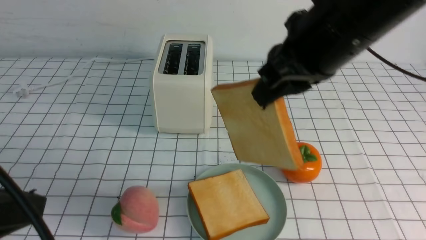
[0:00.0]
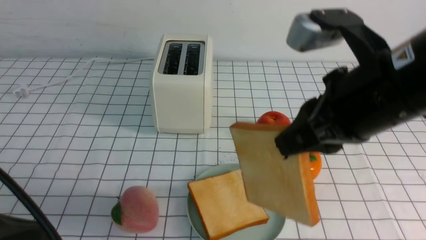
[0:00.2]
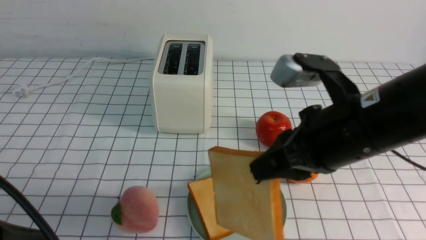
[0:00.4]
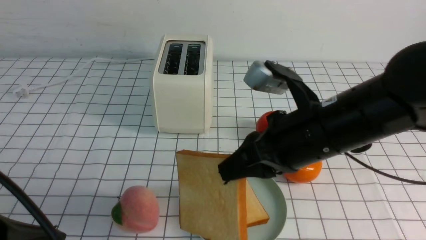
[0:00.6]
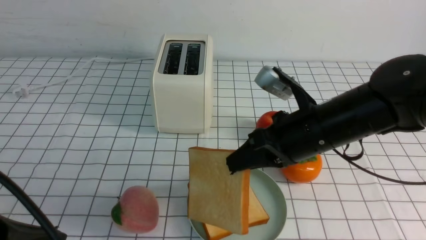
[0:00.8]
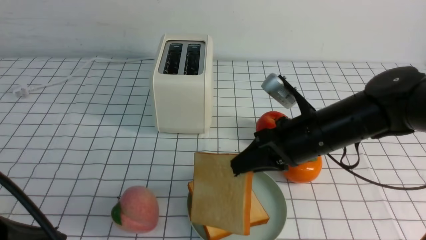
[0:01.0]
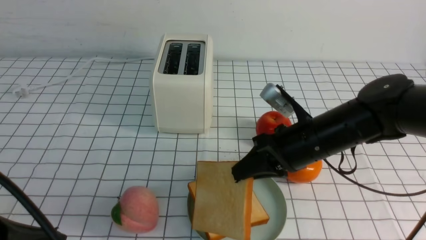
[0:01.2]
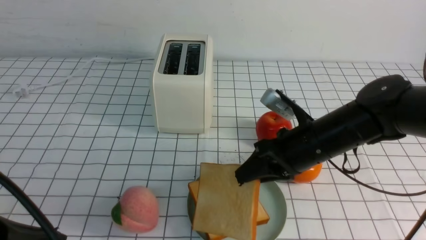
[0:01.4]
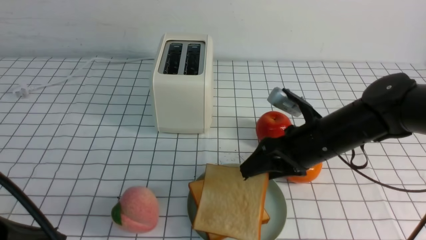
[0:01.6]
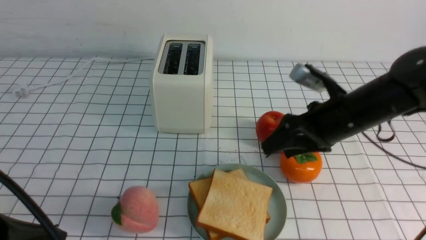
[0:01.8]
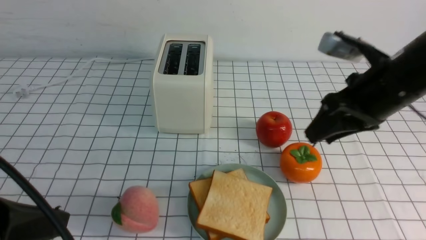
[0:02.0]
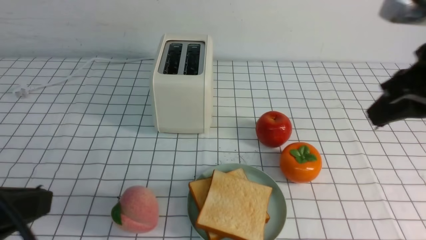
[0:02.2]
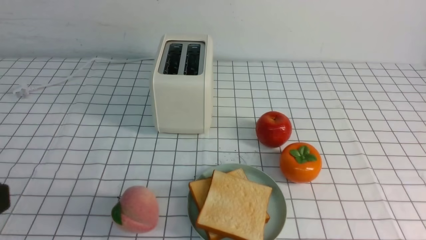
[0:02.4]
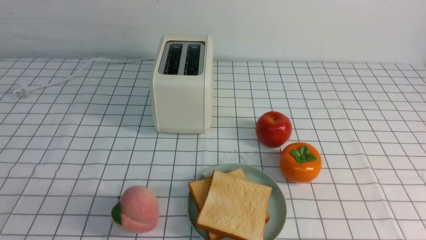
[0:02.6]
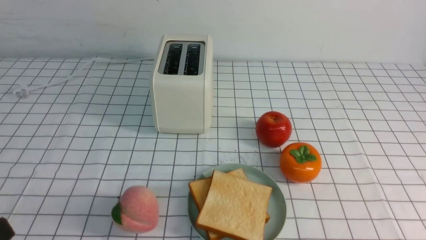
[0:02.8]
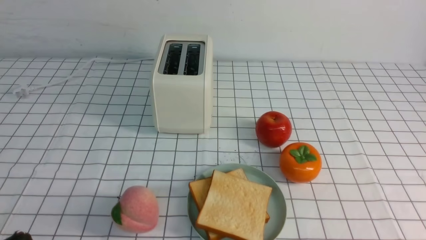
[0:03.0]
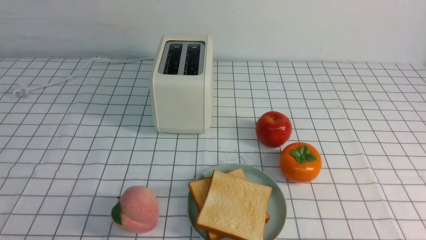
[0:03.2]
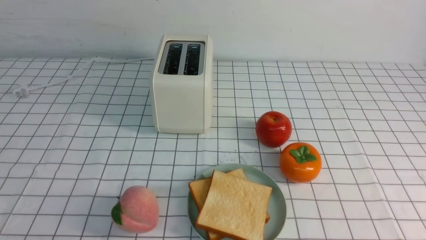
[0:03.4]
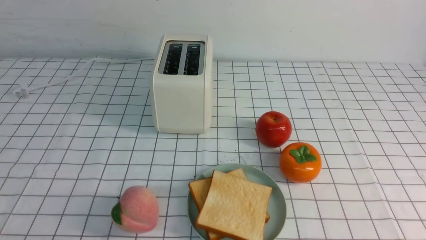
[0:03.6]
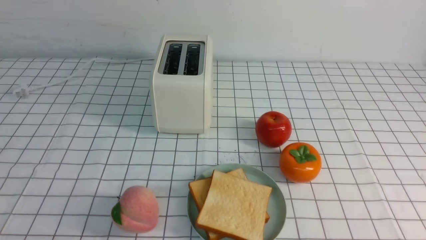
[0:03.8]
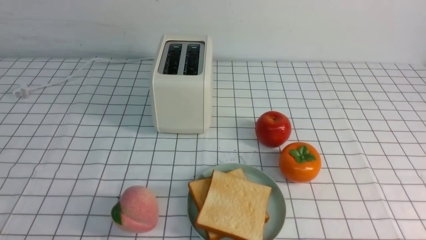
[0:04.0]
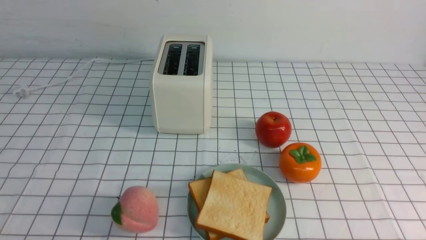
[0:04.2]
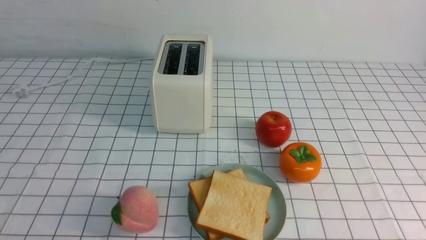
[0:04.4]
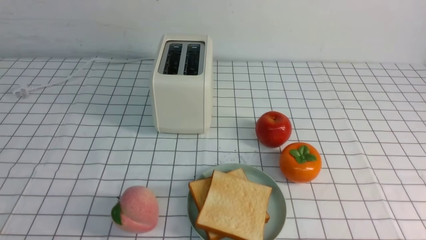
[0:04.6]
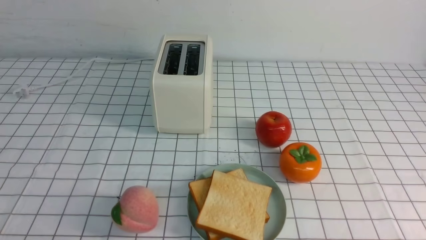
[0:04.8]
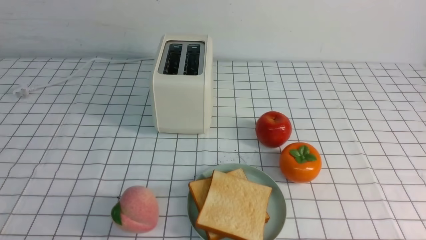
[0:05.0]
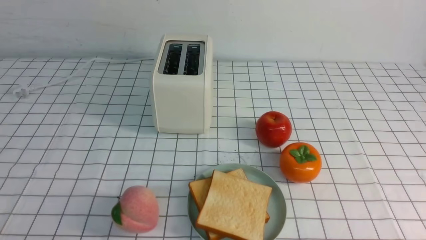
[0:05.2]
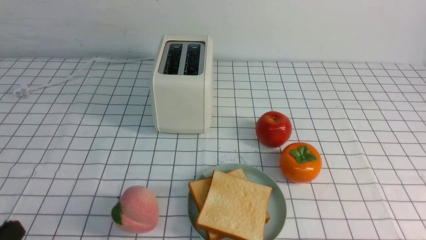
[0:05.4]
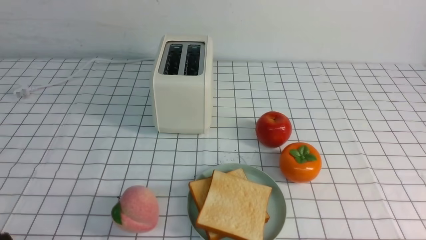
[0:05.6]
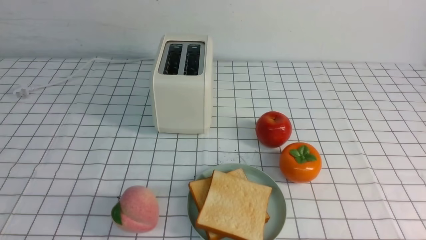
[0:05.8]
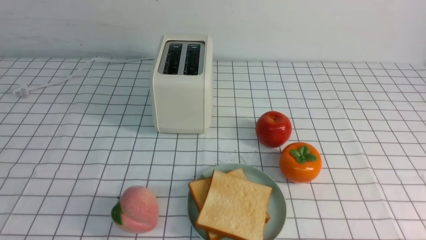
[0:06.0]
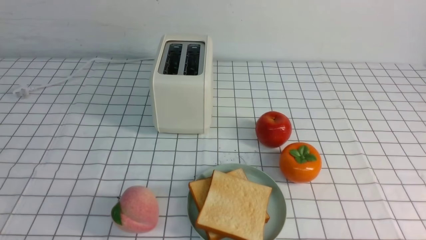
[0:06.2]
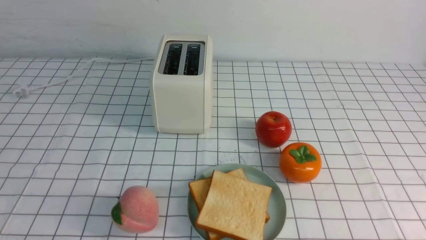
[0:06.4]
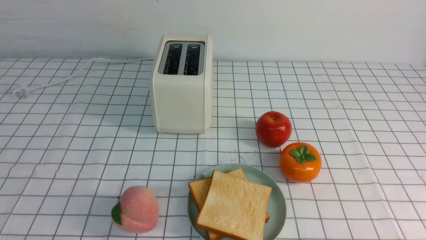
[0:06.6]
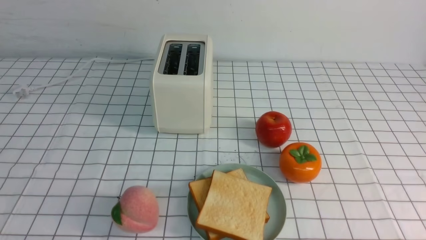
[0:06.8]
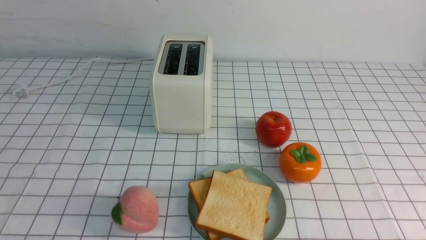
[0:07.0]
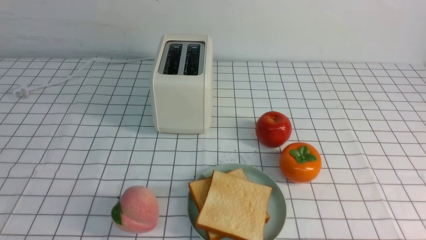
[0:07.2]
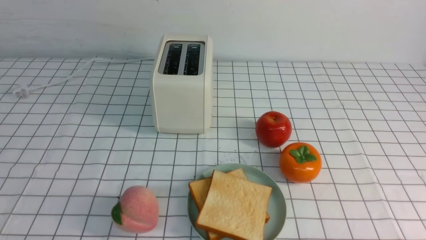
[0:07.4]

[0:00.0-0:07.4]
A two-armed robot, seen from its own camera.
Task of the whole recording: take toasted bread from bread machine on white checkered table place on plate.
Step, 0:00.0 to 0:01.8: use the right arm to put a slice of bread into the plate.
0:00.0 to 0:01.4: The right gripper travels downward by about 20 cm, and opens up.
0:01.4 to 0:03.0: The right gripper goes about 30 cm backward and to the right, and closes its fingers; the left gripper moves downward, about 10 cm.
0:06.0 to 0:07.4: Neither gripper changes place.
